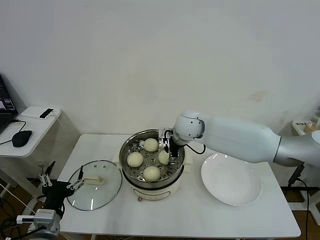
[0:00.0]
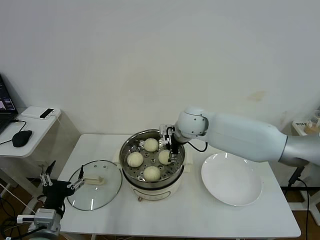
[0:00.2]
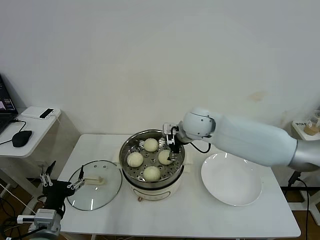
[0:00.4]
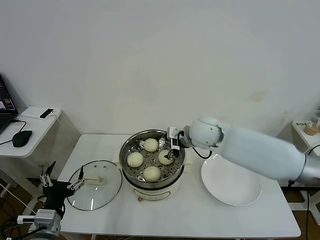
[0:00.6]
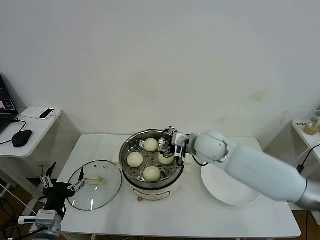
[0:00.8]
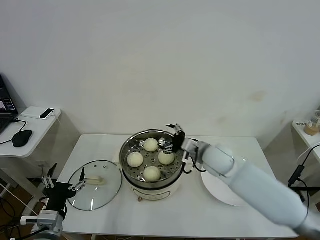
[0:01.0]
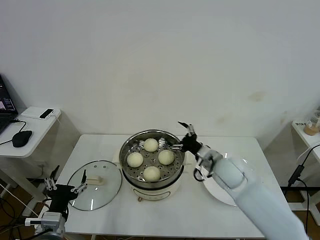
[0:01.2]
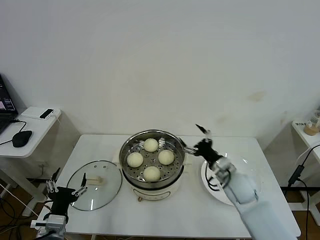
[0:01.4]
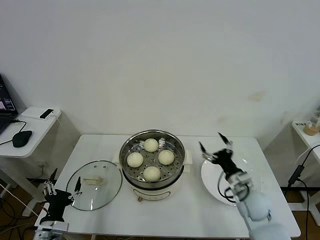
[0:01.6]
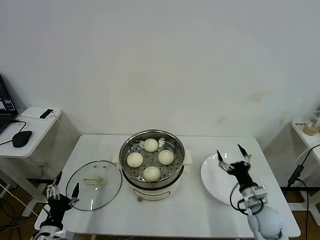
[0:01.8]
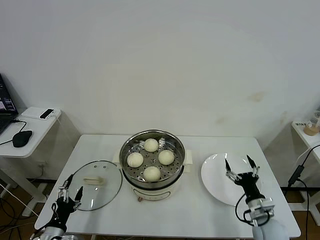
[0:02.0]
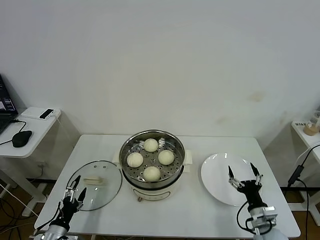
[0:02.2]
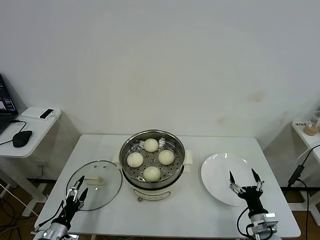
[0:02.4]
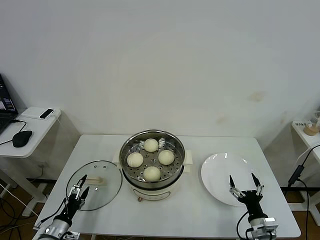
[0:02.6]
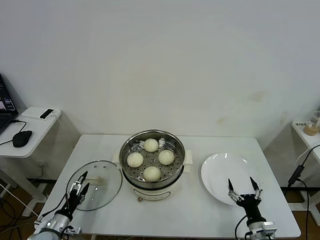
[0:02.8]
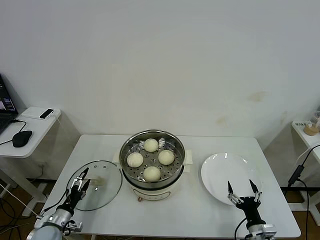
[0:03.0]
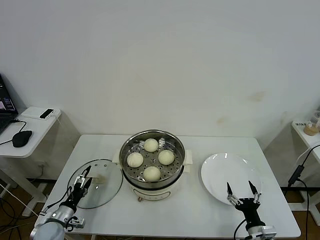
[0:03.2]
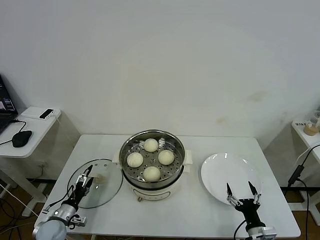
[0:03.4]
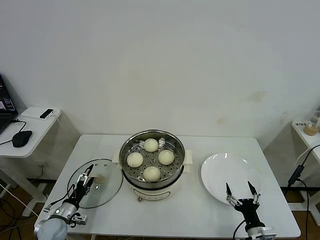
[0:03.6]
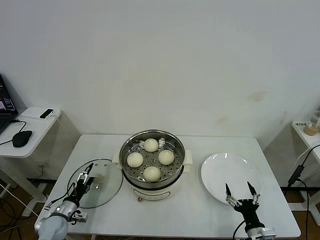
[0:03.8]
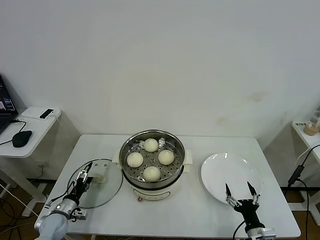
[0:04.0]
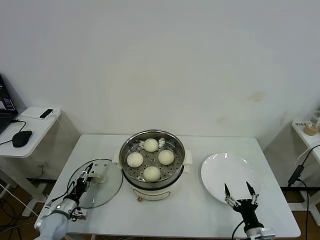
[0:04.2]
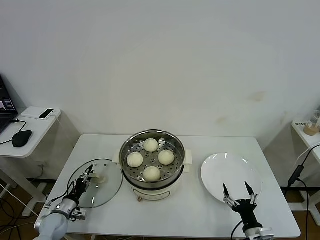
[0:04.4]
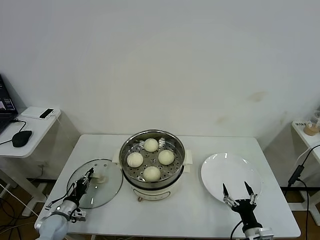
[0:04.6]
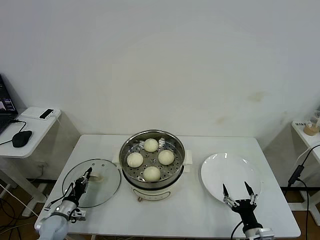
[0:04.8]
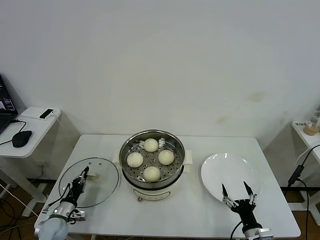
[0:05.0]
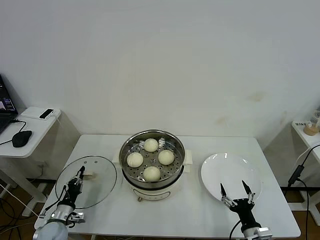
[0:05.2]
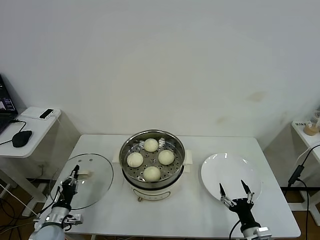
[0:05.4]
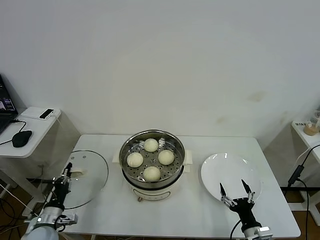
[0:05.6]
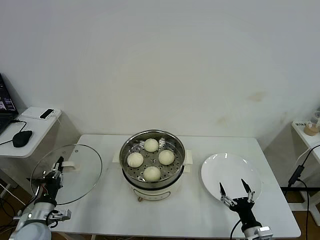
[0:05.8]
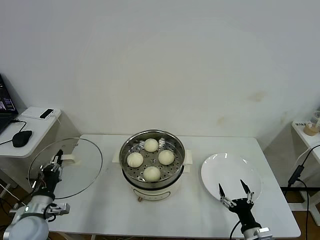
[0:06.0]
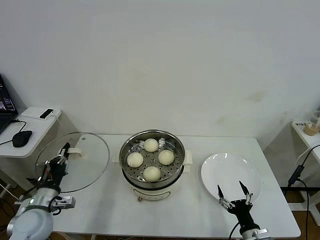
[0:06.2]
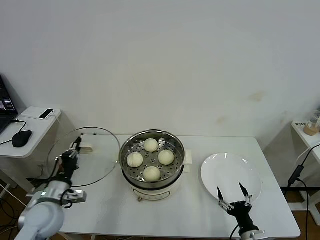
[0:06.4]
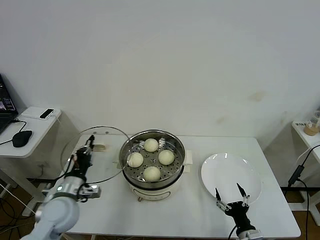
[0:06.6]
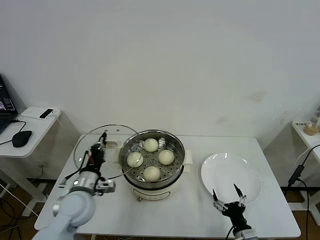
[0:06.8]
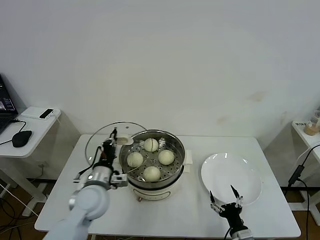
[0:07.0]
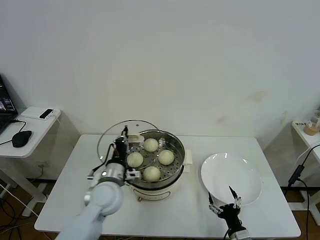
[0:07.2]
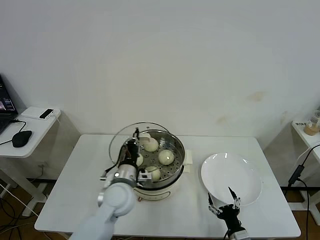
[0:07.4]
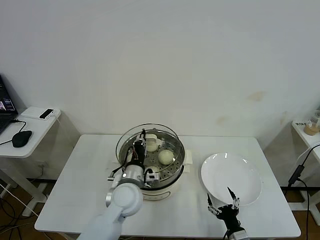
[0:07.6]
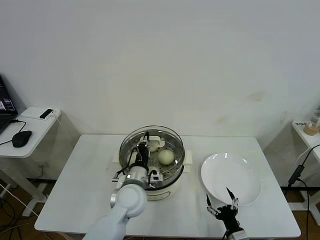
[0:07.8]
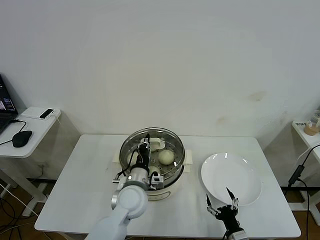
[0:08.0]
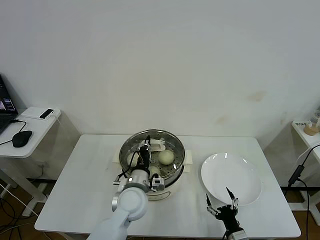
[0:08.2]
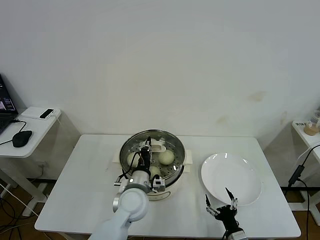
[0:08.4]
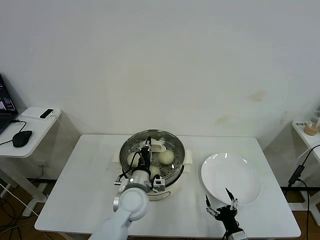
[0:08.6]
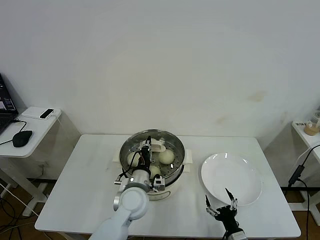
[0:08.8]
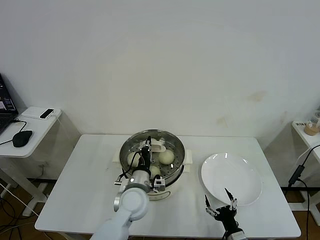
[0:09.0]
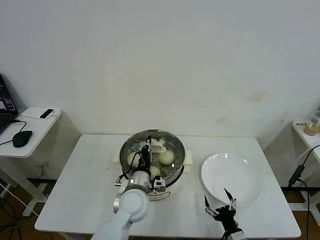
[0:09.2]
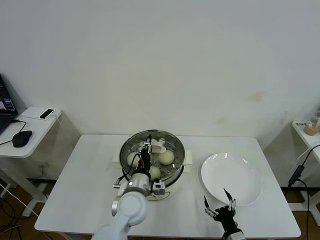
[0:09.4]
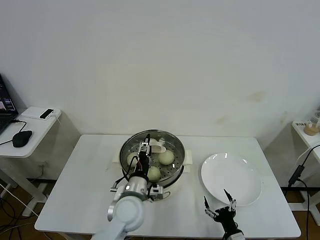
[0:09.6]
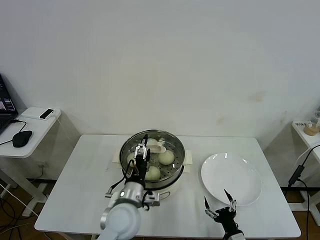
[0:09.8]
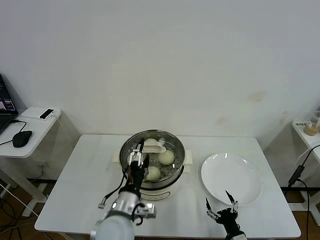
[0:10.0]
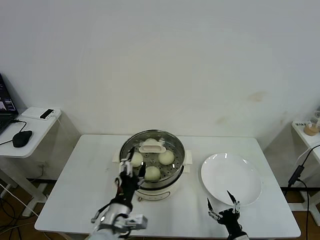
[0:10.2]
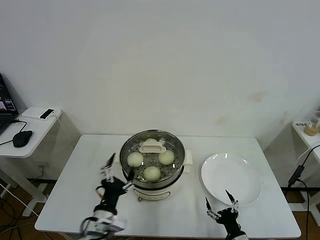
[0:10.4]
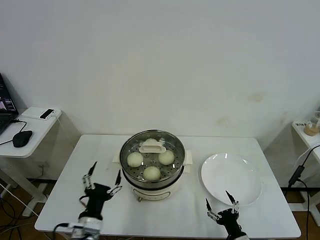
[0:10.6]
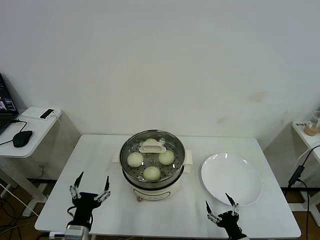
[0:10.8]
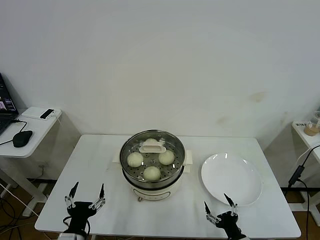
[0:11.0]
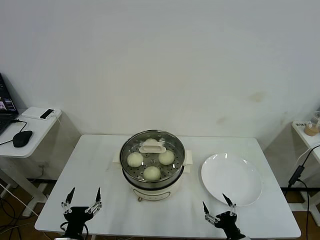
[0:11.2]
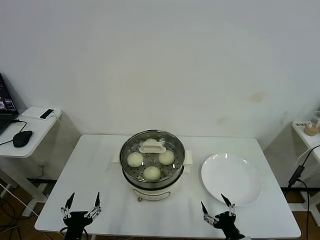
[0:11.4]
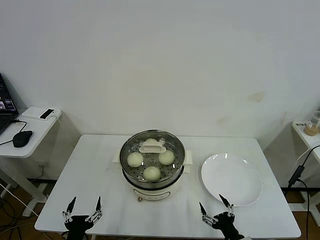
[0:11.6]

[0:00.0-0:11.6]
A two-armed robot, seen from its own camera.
Task of the whole recording: take steamed baozi put them in steamer then cover it.
Step, 0:00.2 to 0:05.0: Grasp the pot lid with left gripper.
Step, 0:05.2 to 0:09.4: Place the pot lid on the steamer with left gripper.
0:00.0 to 0:01.4: The right gripper moves to the right, downward and backward, about 25 cm.
0:01.4 to 0:02.8: The right gripper goes roughly 25 cm backward, downward and to the right; the left gripper is displaced downward and to the left by about 15 cm.
0:02.8 to 0:04.4: The left gripper moves forward, some 10 cm, and closes.
0:04.4 to 0:05.8: The left gripper travels upward and backward by roughly 10 cm, and closes up.
0:05.8 to 0:07.2: The left gripper moves to the right, upward and forward, roughly 25 cm.
0:07.2 to 0:08.8: The left gripper is displaced to the right by about 10 cm.
0:08.8 to 0:10.2: The left gripper is displaced backward by about 10 cm, and opens up.
0:10.2 to 0:11.6: The left gripper is displaced to the left, backward and downward by approximately 20 cm.
